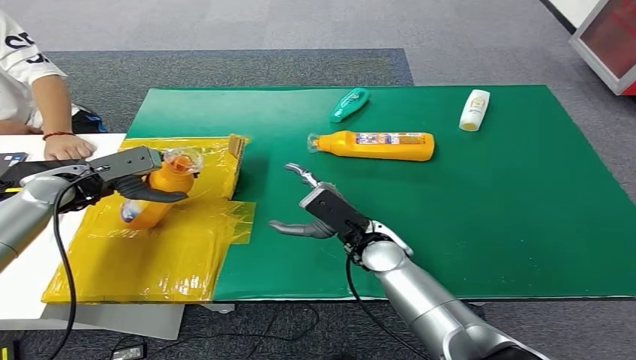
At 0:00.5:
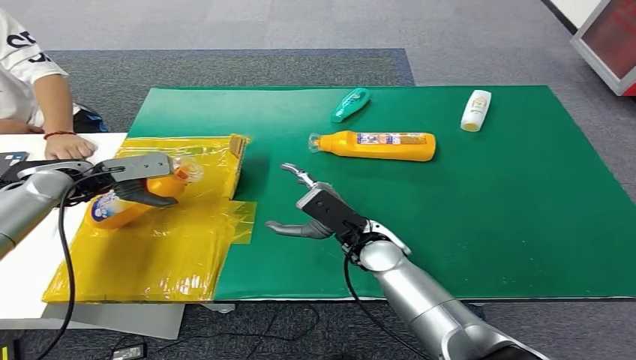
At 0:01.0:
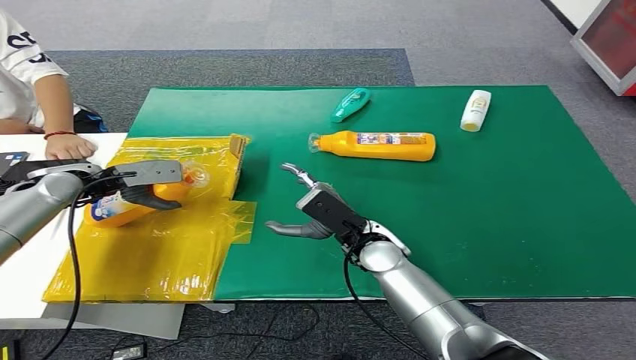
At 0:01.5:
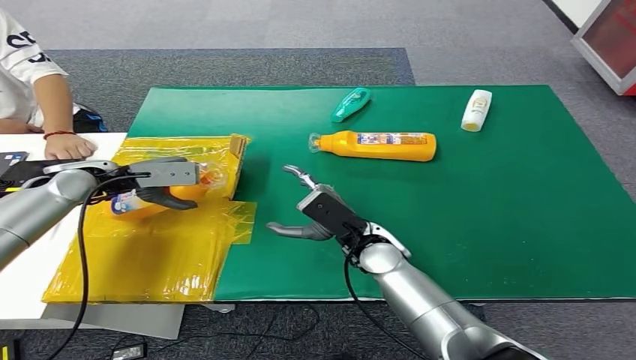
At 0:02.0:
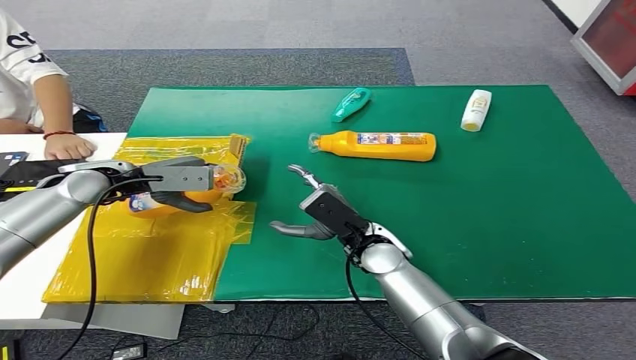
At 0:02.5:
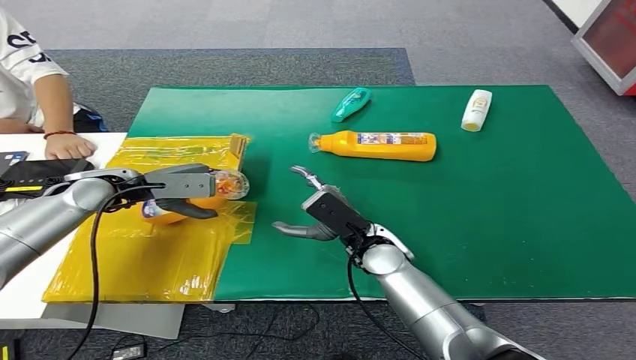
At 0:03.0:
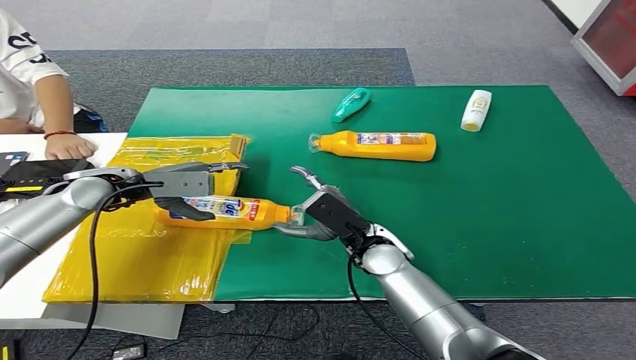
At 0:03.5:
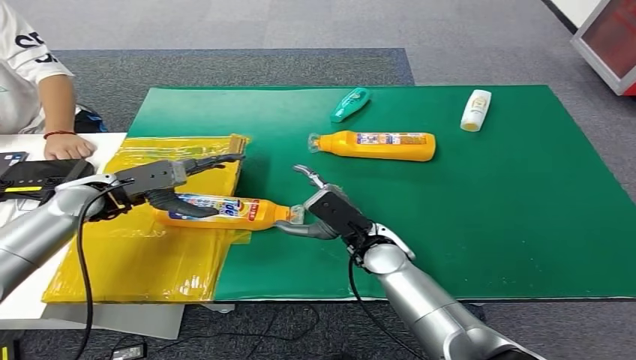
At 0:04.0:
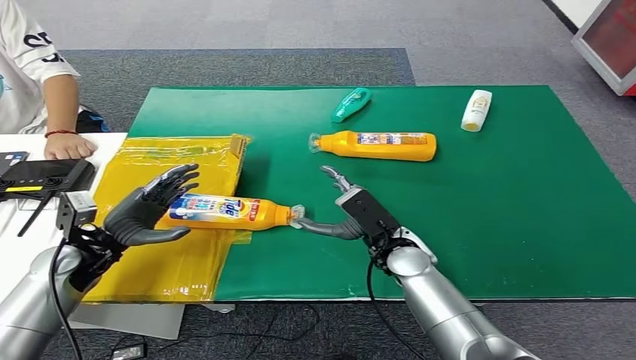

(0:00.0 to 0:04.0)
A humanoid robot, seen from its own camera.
Step, 0:00.0 - 0:04.0: Turn the bottle to the front side.
0:00.0 - 0:02.0: The left hand heads to the right, covering about 5 cm.
0:02.0 - 0:04.0: The left hand heads backward and downward, covering some 15 cm.
